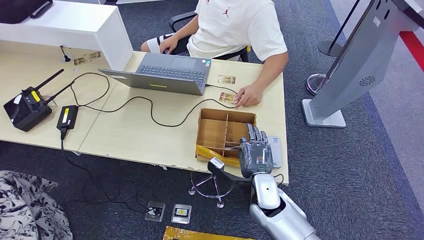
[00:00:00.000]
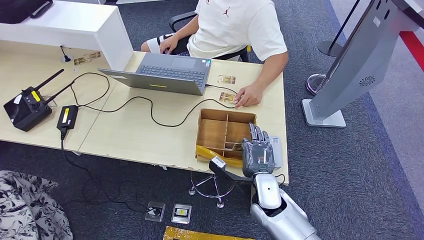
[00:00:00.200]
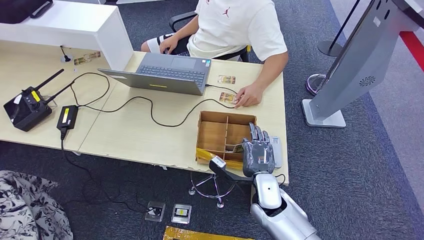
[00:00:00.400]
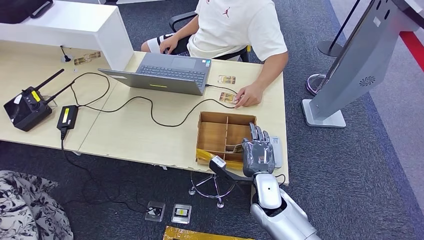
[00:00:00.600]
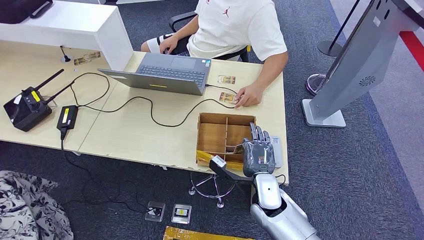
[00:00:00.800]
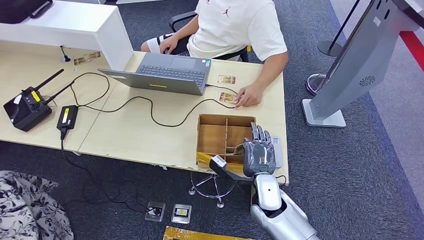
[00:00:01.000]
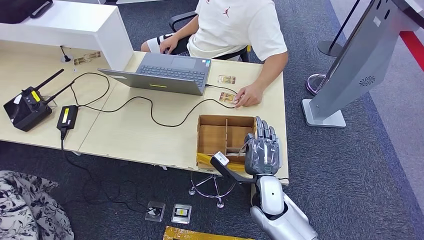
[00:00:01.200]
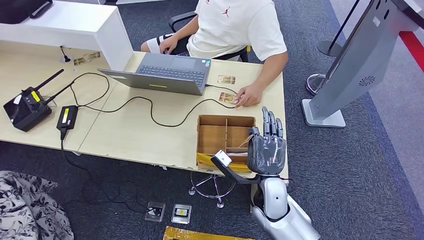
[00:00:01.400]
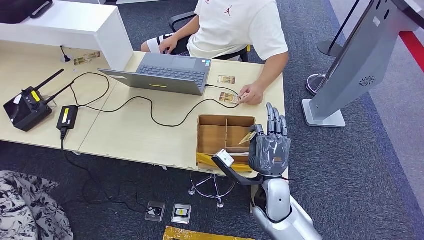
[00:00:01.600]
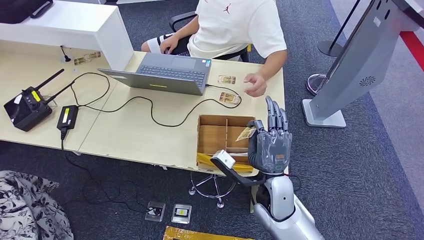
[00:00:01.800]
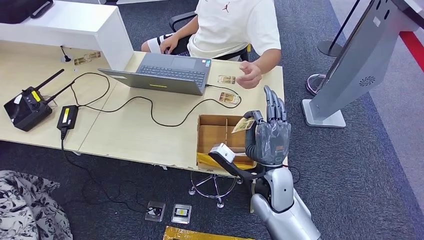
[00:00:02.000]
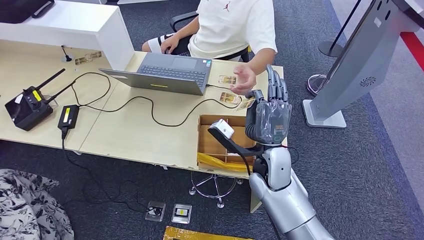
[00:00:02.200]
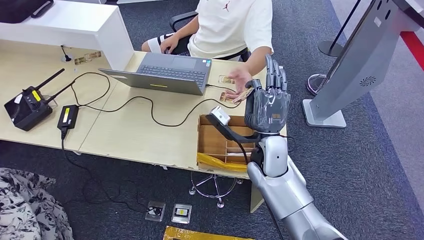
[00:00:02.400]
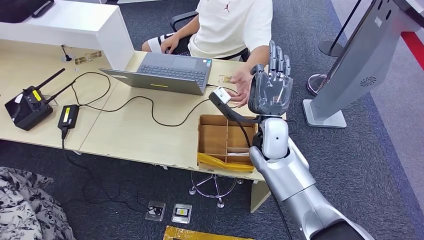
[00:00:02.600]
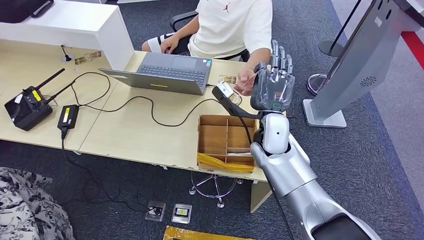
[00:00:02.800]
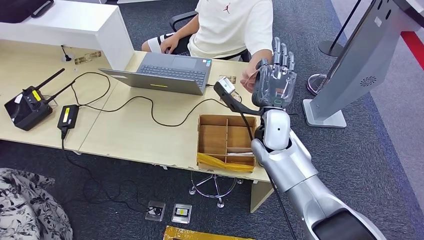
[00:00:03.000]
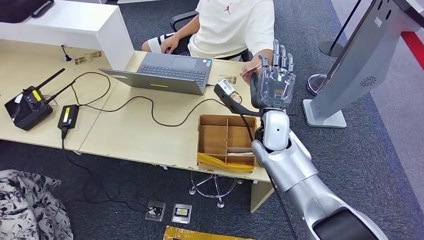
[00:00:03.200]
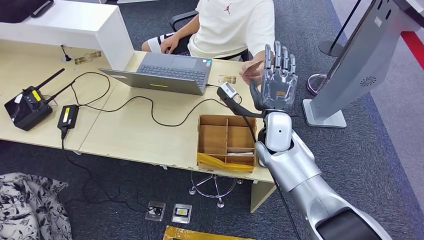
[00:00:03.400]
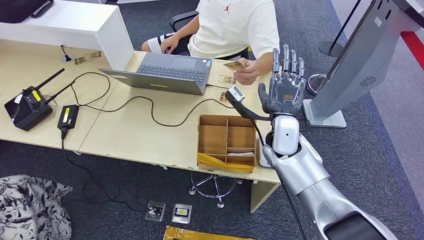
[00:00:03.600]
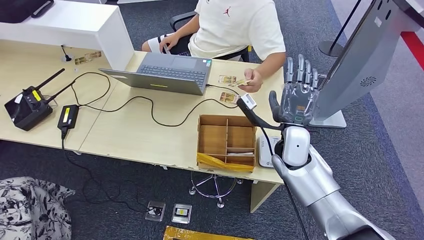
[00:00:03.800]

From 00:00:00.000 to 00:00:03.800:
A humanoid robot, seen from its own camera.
Step, from 00:00:00.400 to 00:00:01.600: Pick up the room key from the key card box.
Step, from 00:00:02.200 to 00:00:03.800: Hand the room key to the person.
From 00:00:00.000 to 00:00:01.200: The hands make only small movements.
From 00:00:01.200 to 00:00:02.600: The right hand heads upward and forward, covering some 15 cm.
From 00:00:02.600 to 00:00:03.800: The right hand is displaced to the right by about 5 cm.
